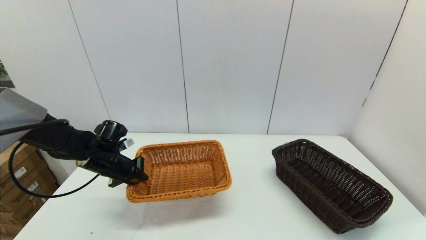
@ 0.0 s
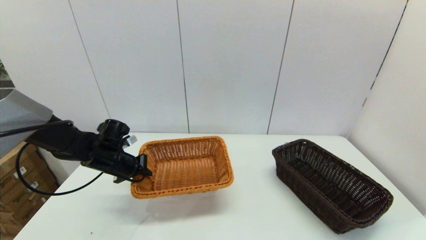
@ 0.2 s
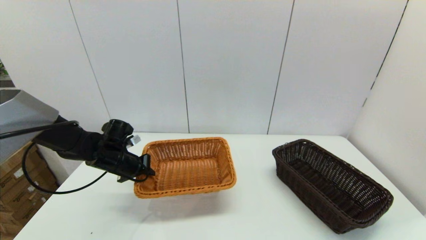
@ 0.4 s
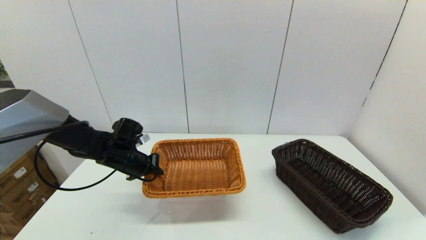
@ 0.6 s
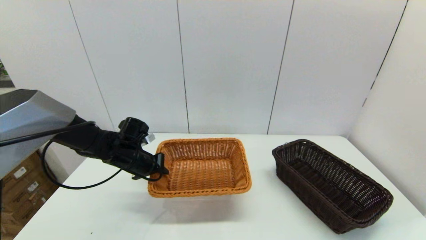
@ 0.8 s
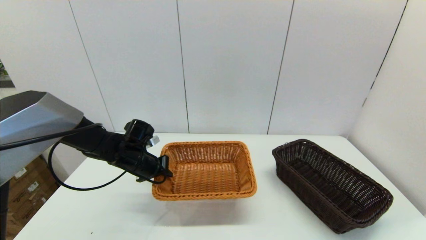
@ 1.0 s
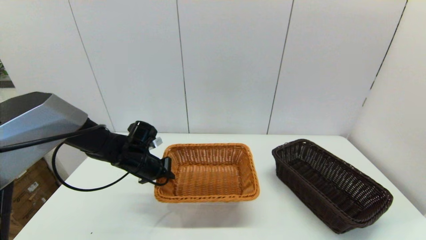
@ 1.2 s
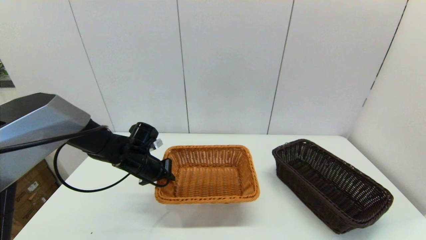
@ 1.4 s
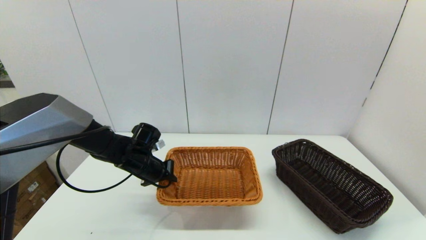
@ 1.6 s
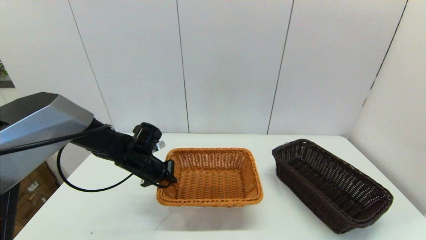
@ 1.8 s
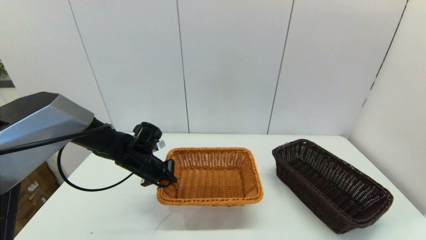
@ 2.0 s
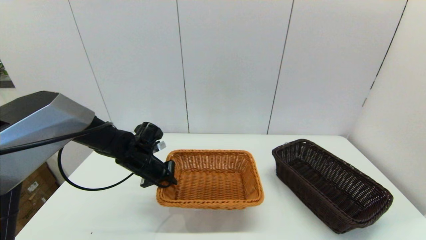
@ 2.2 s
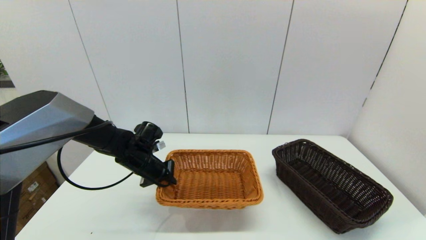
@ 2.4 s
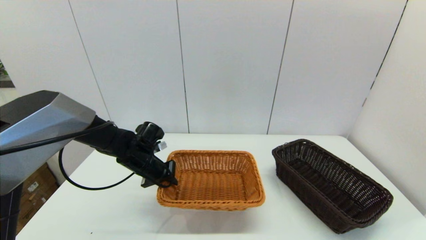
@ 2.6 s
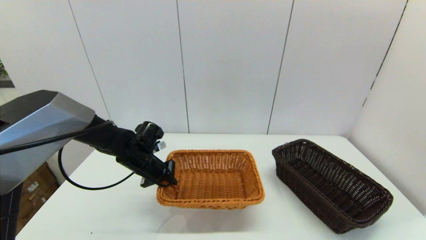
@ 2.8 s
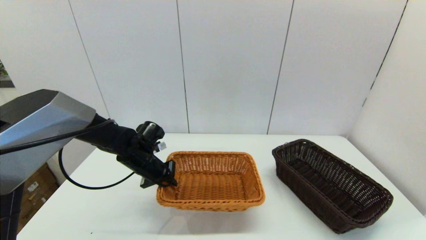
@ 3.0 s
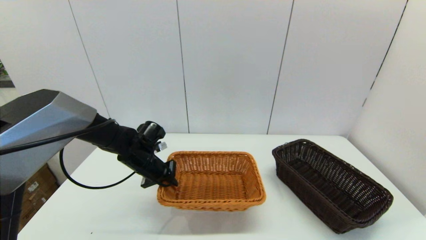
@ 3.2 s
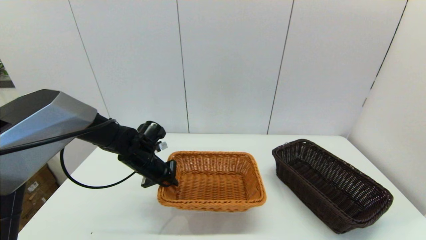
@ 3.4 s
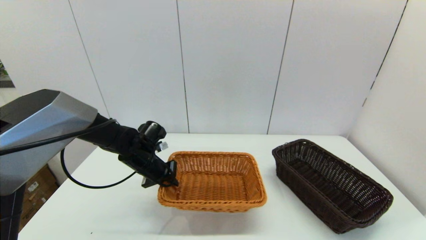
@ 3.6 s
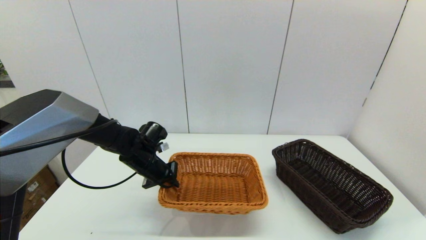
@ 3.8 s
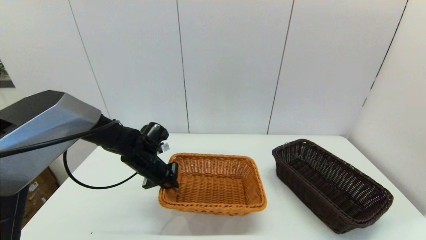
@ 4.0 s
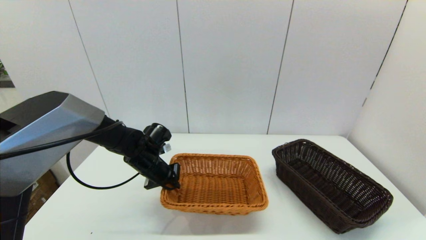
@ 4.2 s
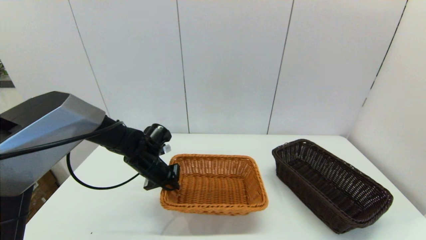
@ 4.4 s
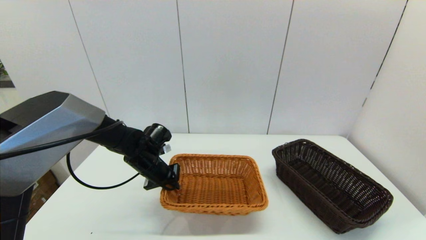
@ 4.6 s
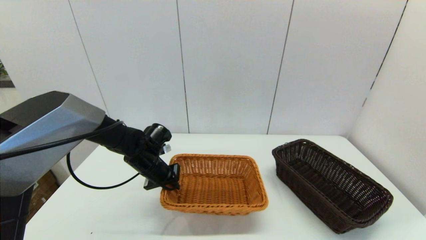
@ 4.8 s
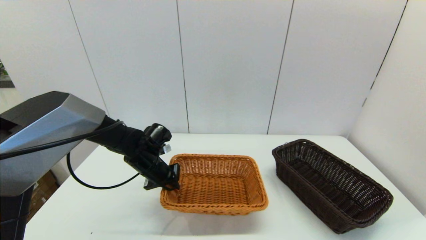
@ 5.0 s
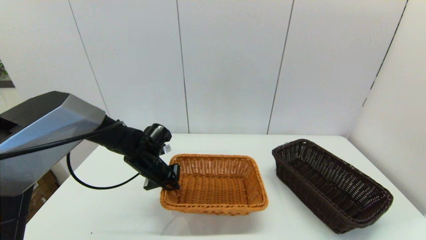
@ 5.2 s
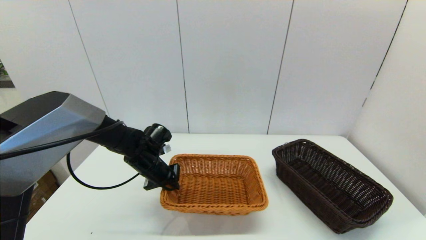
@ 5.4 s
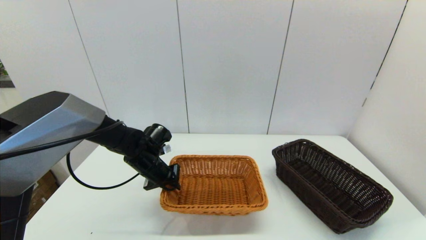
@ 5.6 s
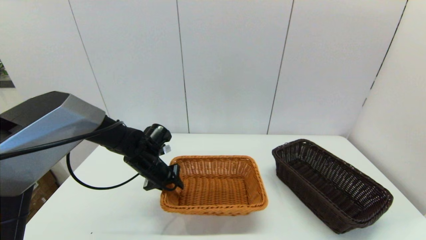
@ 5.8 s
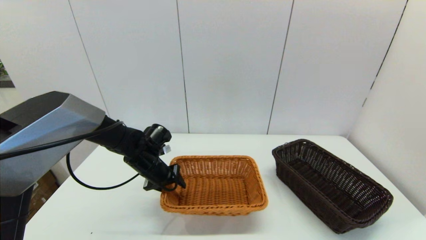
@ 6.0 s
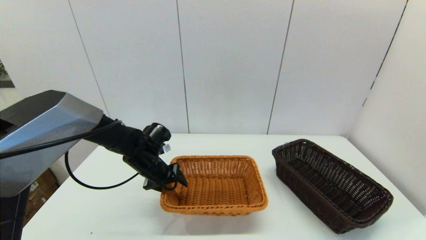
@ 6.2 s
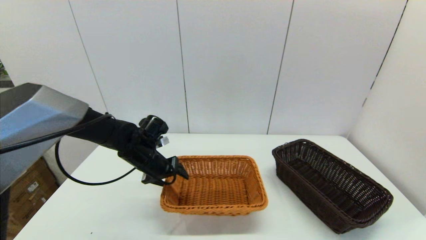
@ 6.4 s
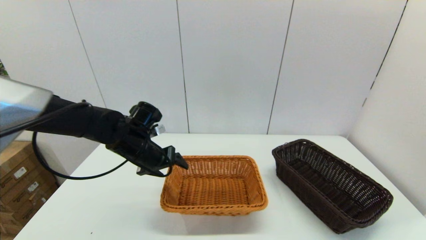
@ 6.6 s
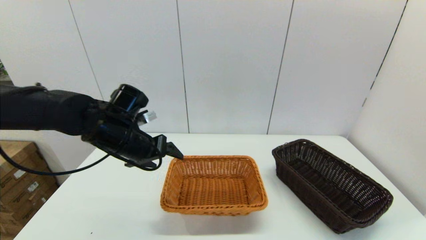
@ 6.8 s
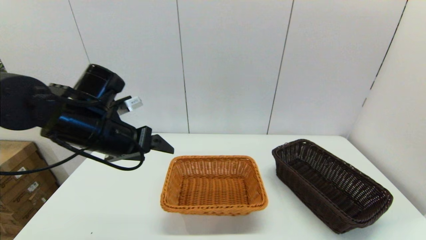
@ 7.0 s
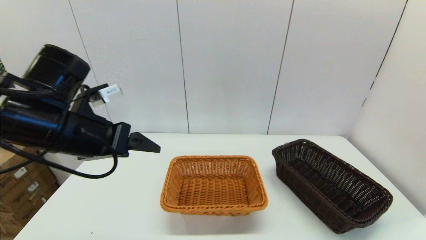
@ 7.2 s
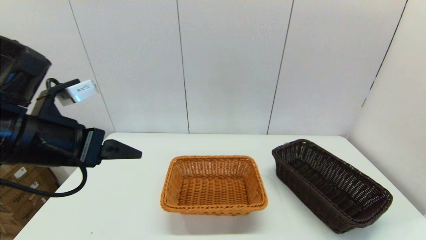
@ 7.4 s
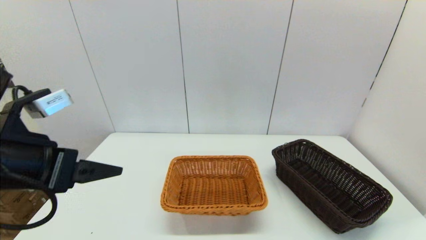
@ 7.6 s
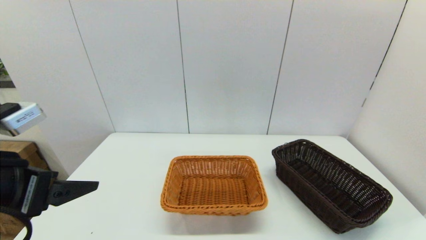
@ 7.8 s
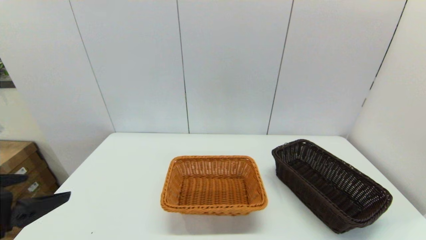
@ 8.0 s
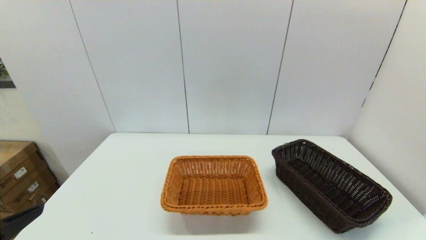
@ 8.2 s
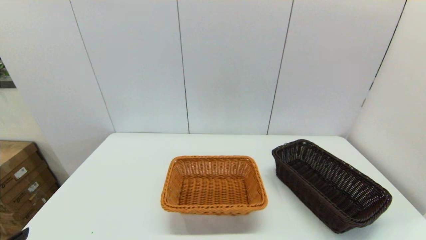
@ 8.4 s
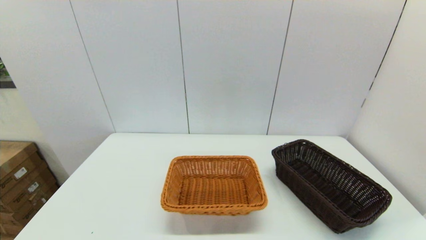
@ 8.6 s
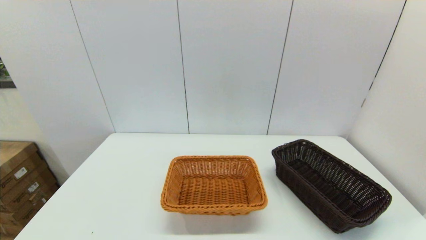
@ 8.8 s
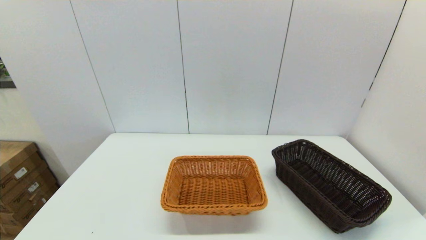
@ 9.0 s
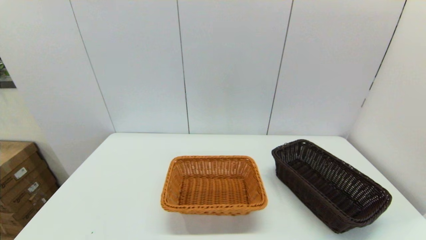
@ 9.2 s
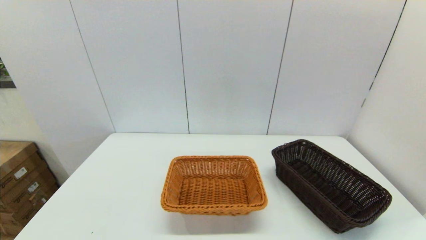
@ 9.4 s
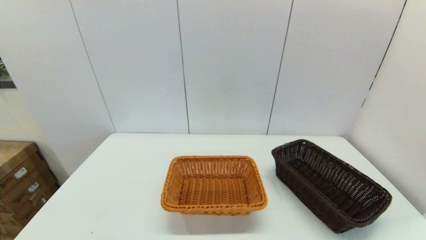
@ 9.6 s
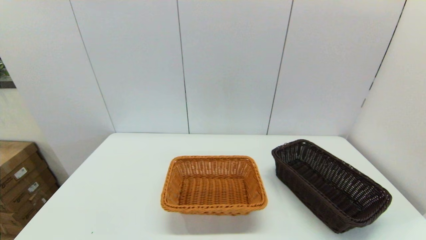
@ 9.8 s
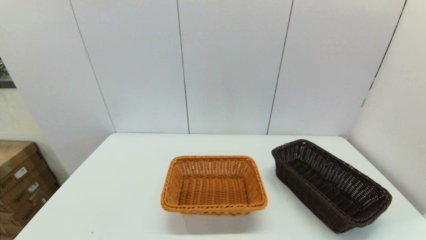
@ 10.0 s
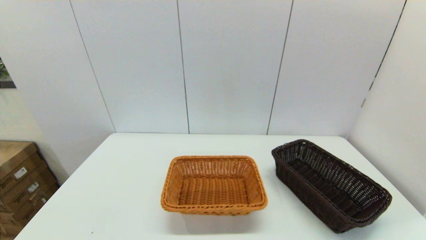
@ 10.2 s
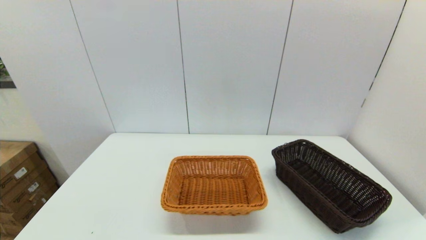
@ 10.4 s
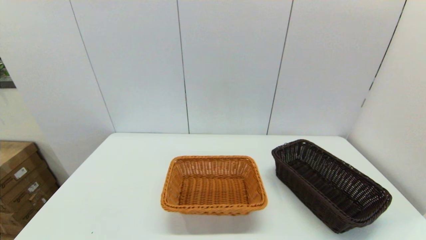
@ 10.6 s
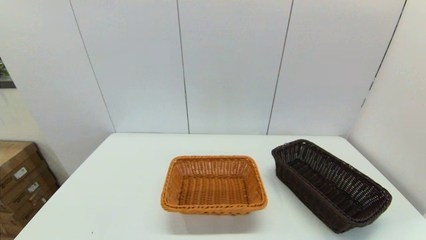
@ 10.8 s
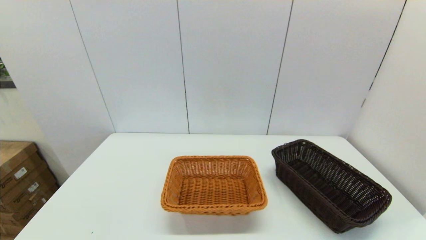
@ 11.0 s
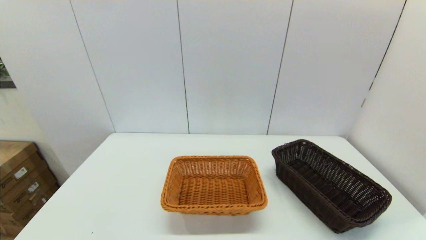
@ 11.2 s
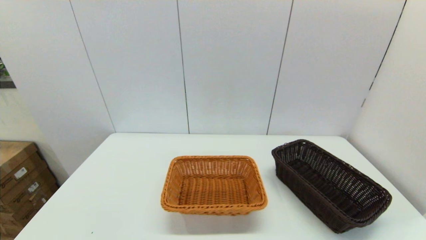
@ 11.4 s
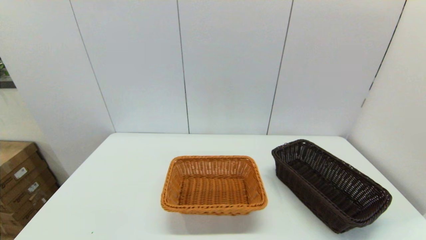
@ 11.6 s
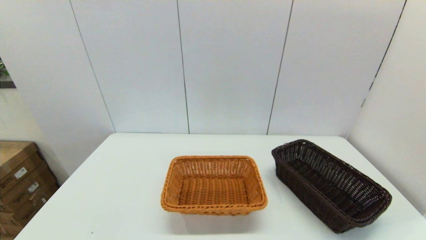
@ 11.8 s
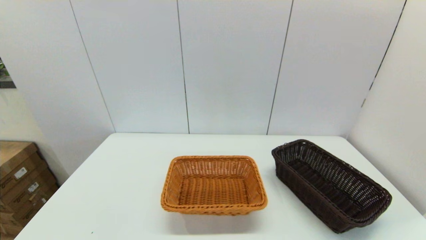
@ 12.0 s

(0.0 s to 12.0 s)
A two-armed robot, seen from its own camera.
Task of the whole recording: stack a basket on top of another basket.
Step, 0.0 s - 7.0 s: Place the light basket on the middle of the table with the left gripper.
0.0 s - 1.6 s: The left gripper is displaced to the right by roughly 10 cm.
1.6 s - 4.4 s: The grippers stay close to where they were, moving slightly.
6.0 s - 7.6 s: The left gripper moves upward and backward, about 30 cm, and opens its fingers.
7.6 s - 9.0 s: The left gripper travels backward and downward by some 20 cm.
10.4 s - 12.0 s: Both grippers stay put.

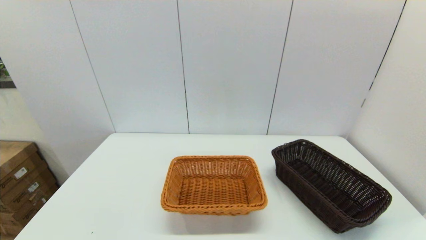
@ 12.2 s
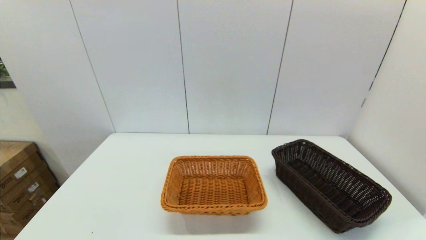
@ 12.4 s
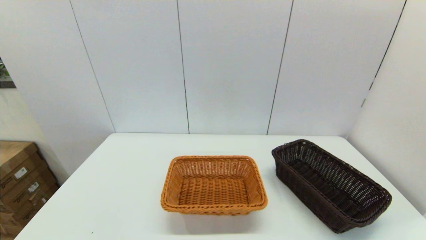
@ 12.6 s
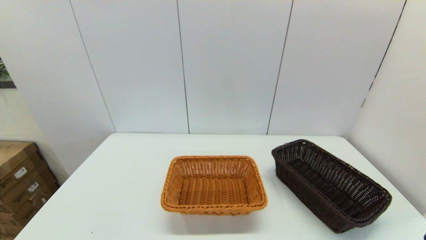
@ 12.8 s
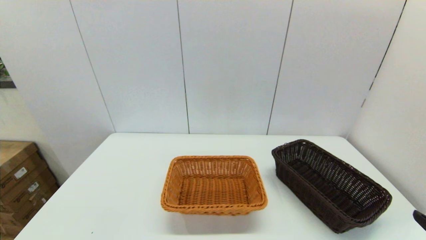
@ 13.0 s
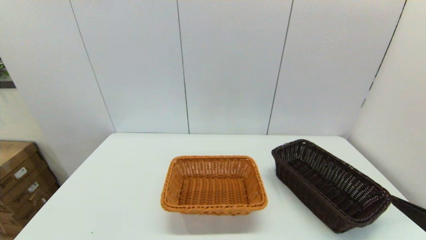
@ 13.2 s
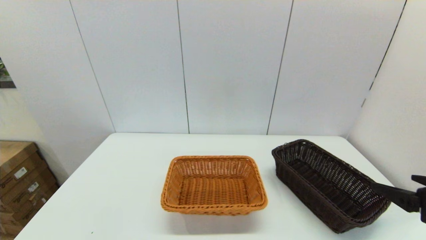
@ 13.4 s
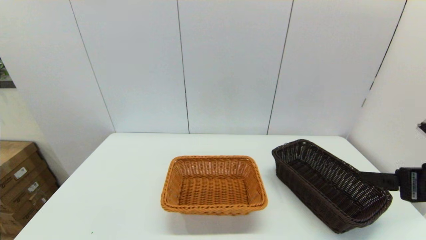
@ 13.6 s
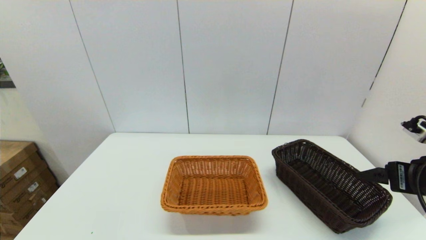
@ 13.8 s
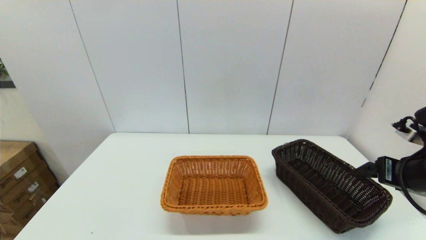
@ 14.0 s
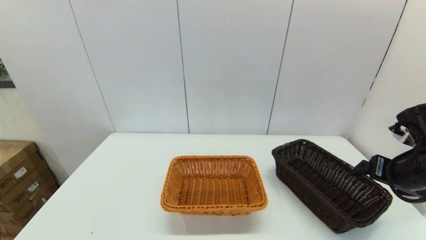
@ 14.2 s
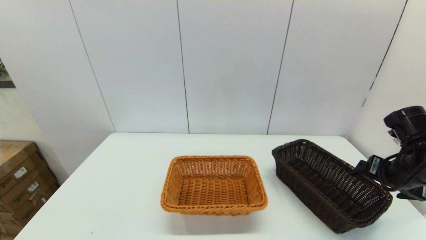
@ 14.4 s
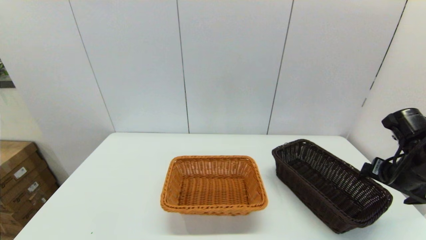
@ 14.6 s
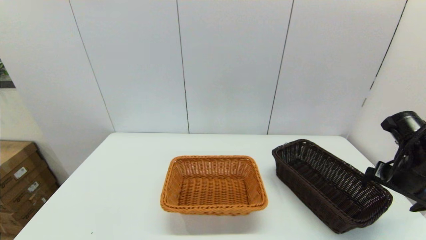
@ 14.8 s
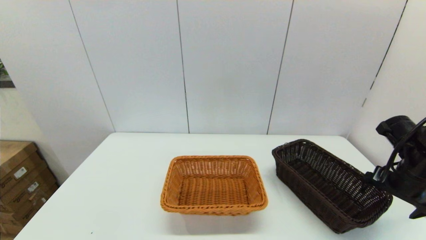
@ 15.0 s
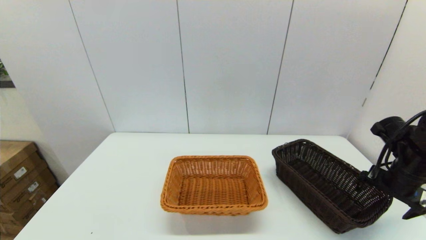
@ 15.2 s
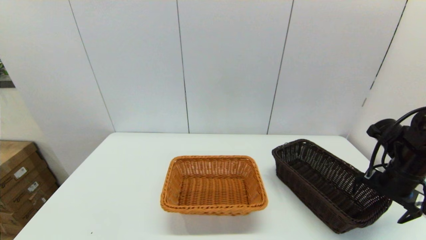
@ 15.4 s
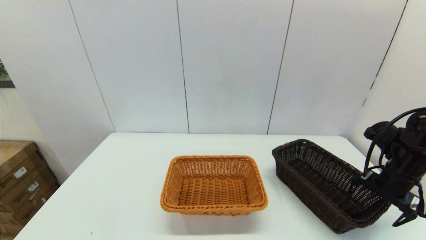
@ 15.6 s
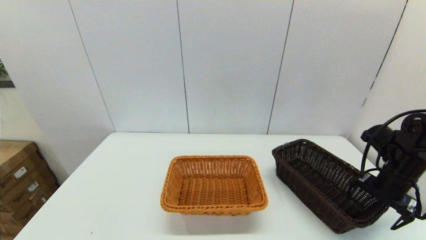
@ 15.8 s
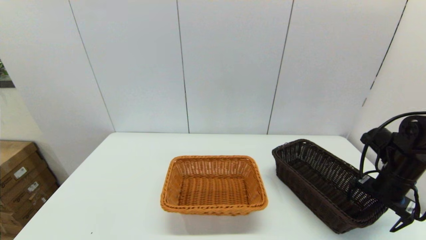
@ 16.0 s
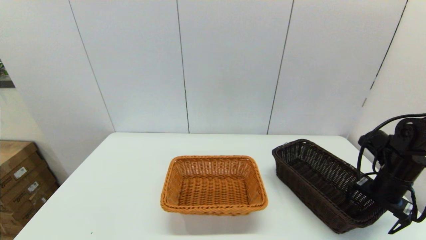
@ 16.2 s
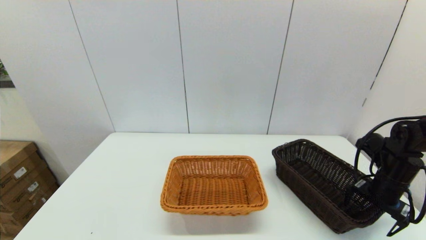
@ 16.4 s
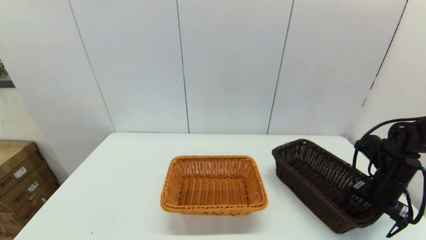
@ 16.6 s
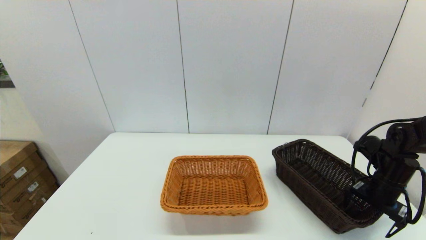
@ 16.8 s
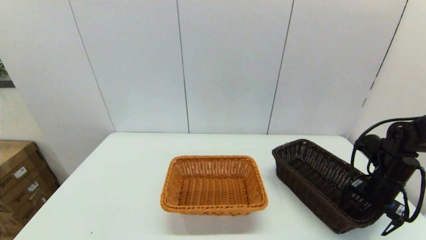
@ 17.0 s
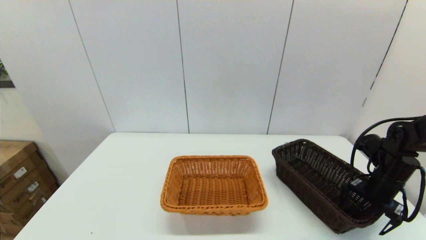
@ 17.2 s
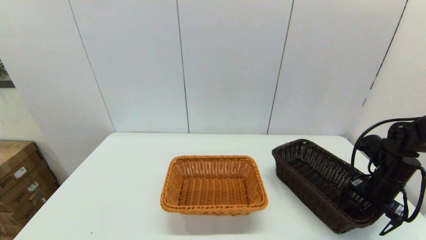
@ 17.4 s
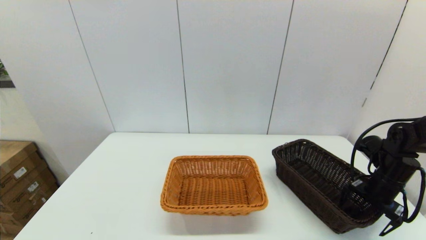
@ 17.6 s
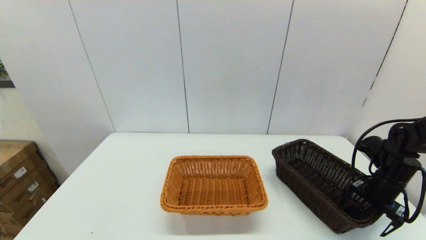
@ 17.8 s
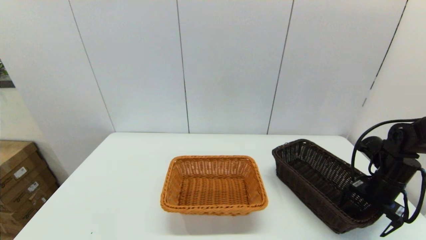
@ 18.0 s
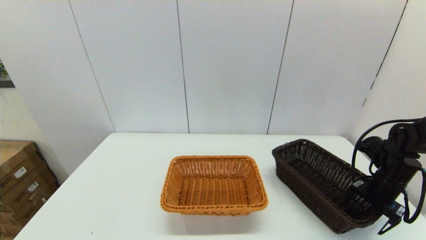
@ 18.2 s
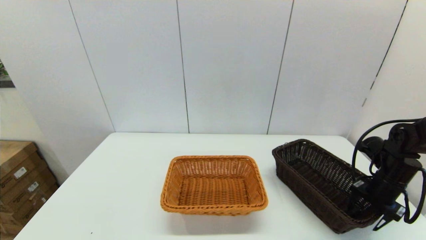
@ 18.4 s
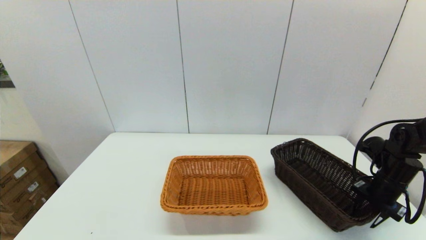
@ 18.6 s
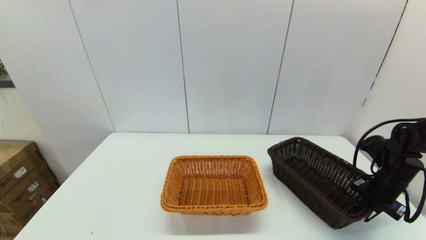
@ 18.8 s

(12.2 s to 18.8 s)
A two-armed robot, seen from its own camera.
Task of the whole recording: stack a basket on top of another basket.
12.2 s - 13.8 s: The right gripper heads forward and upward, covering some 25 cm.
13.8 s - 15.4 s: The right gripper goes approximately 10 cm forward and downward.
15.4 s - 17.2 s: The right gripper is displaced downward by approximately 5 cm.
17.2 s - 18.8 s: The right gripper closes its fingers.
